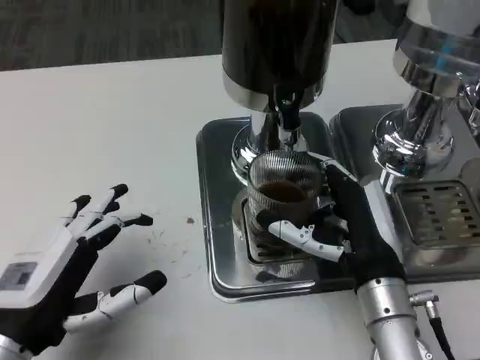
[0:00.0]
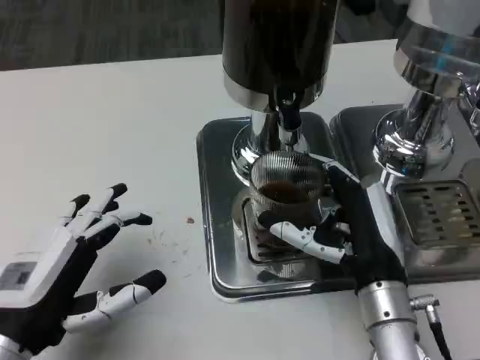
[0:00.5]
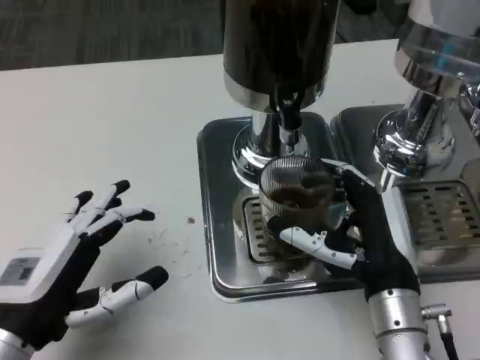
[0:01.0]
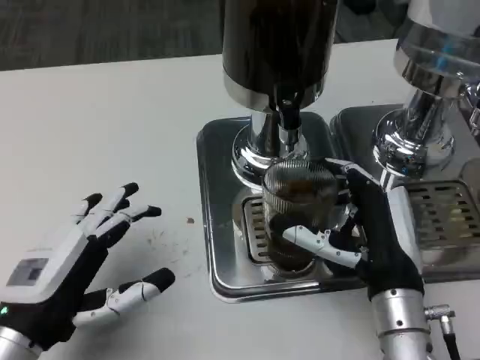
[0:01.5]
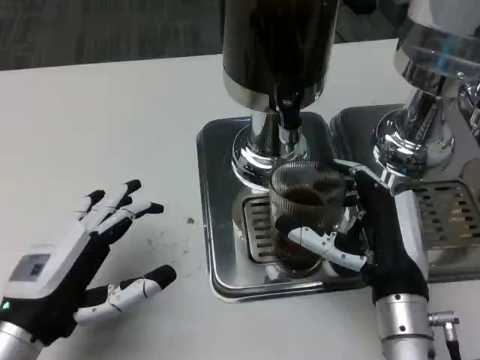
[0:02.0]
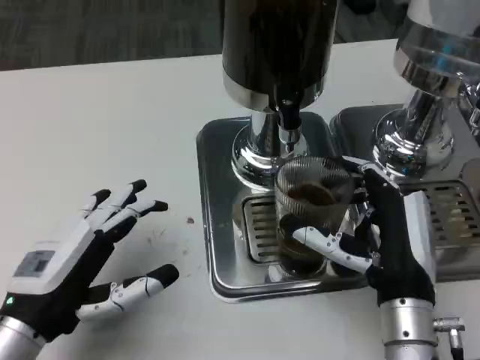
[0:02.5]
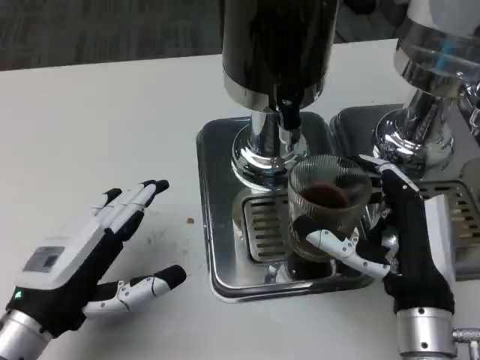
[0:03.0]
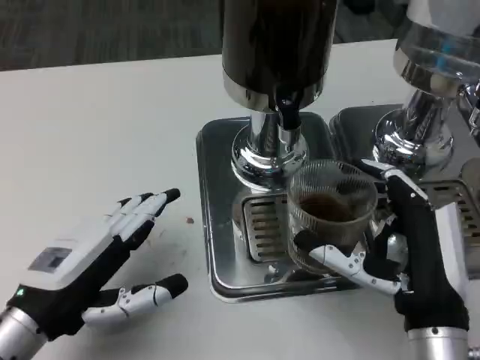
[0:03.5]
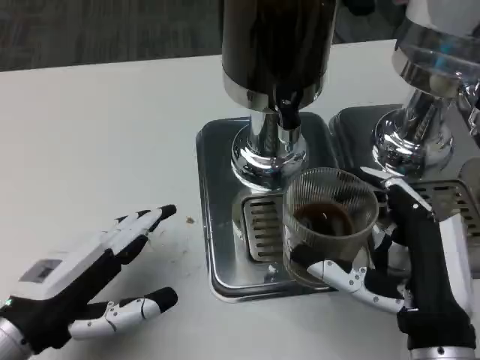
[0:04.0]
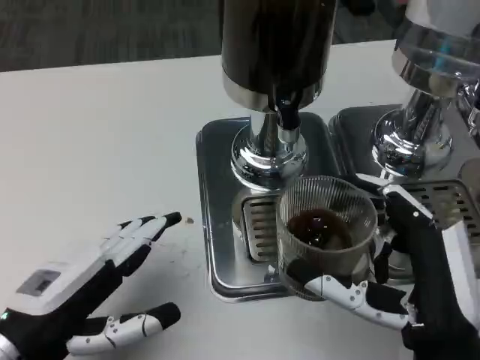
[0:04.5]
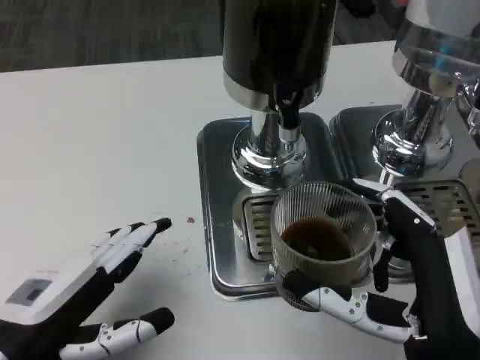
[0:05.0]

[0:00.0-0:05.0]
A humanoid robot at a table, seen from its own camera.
Task of the whole recording: Grasp the cup under the faucet to collect the drink, then remove the cup.
0:00.0 to 0:02.5: The hands move only a little.
0:02.5 to 0:05.0: The right hand moves backward, some 10 cm.

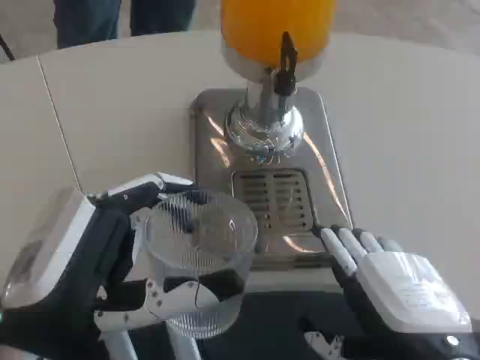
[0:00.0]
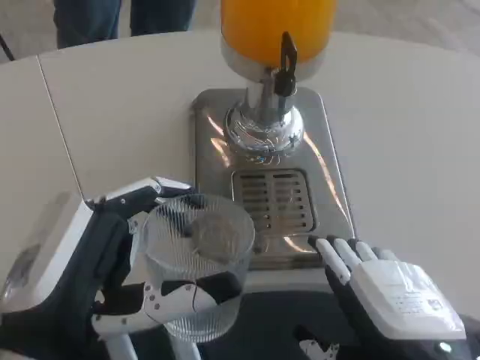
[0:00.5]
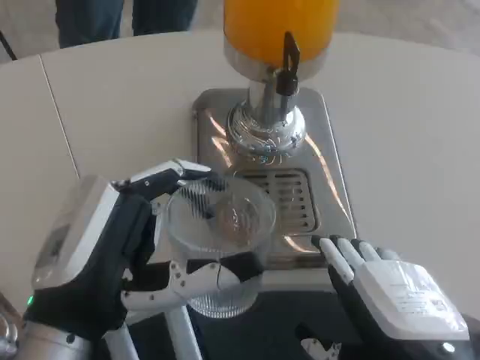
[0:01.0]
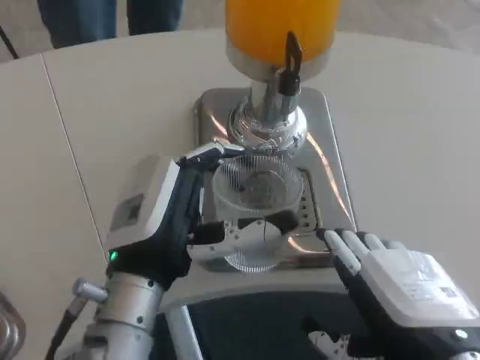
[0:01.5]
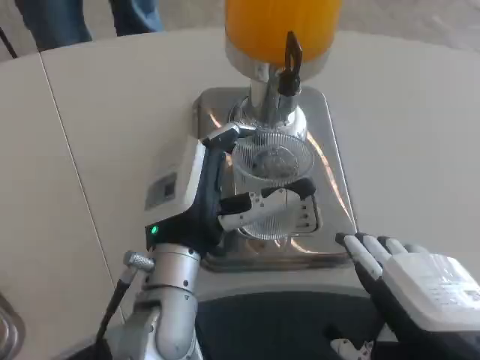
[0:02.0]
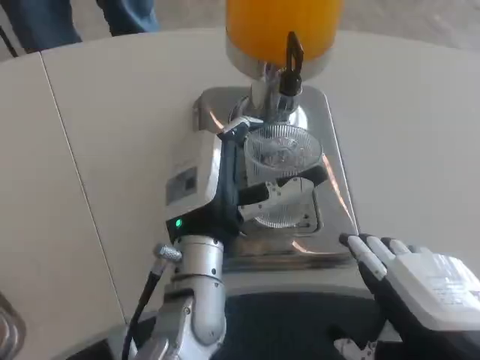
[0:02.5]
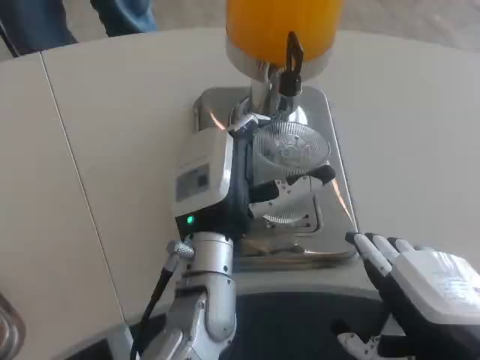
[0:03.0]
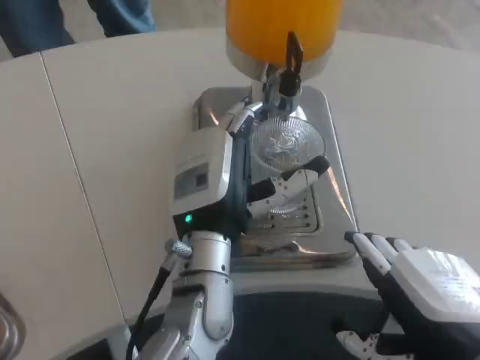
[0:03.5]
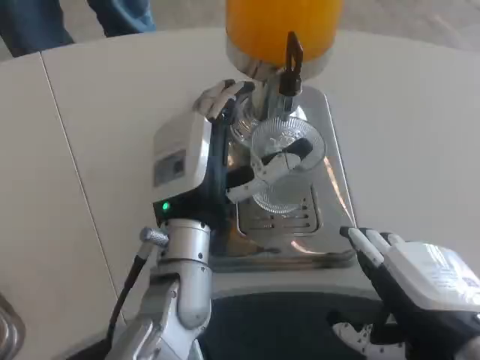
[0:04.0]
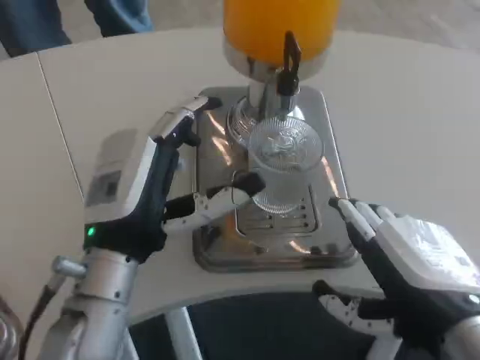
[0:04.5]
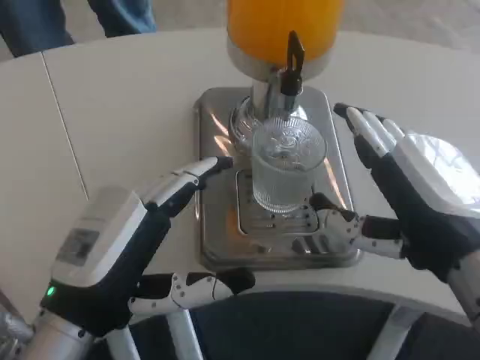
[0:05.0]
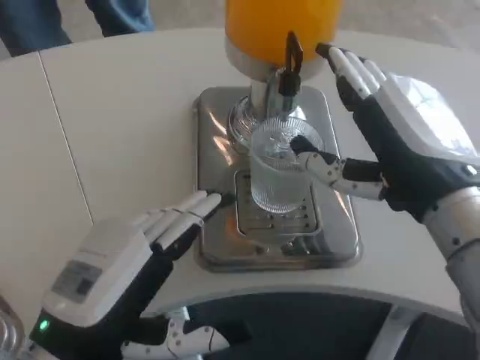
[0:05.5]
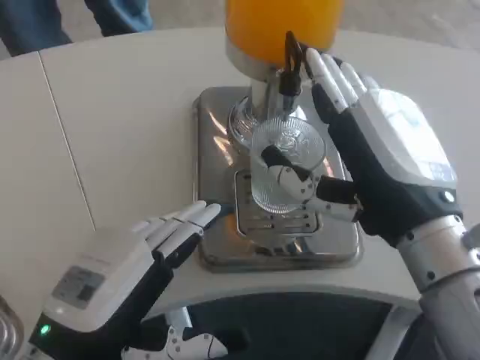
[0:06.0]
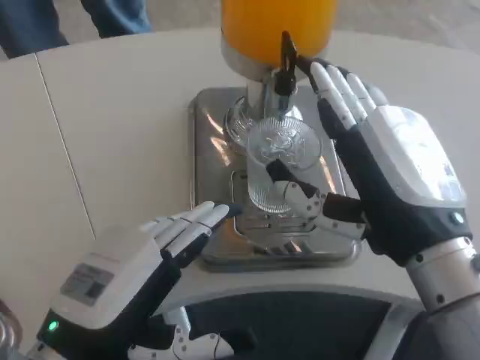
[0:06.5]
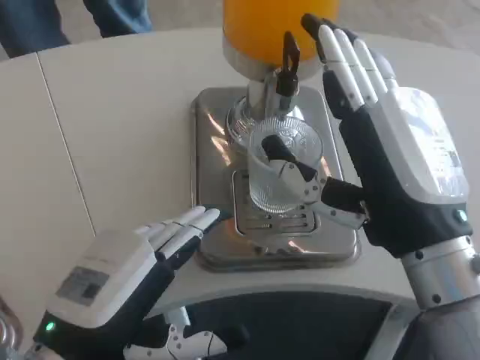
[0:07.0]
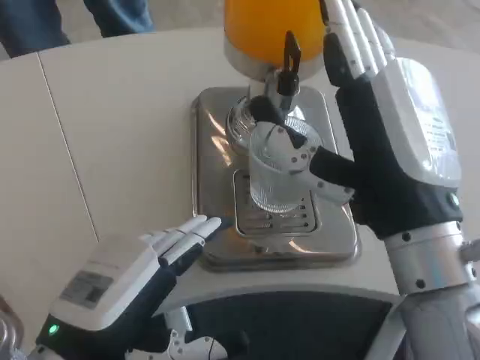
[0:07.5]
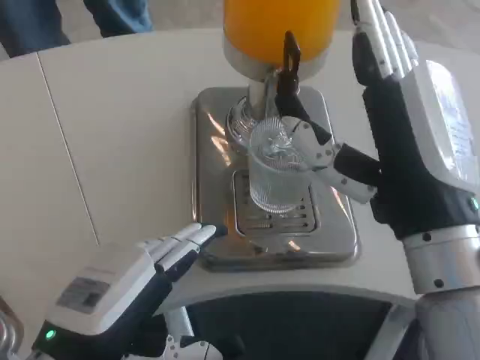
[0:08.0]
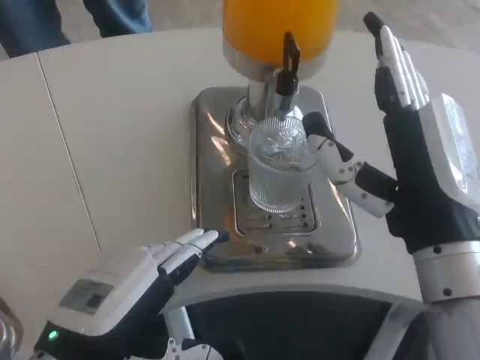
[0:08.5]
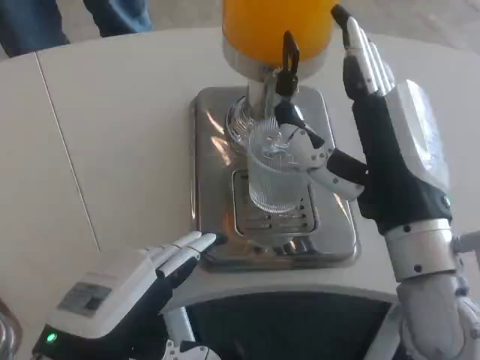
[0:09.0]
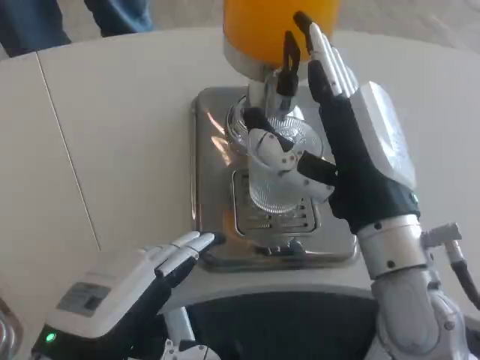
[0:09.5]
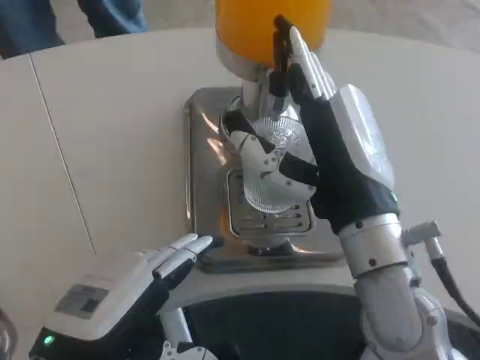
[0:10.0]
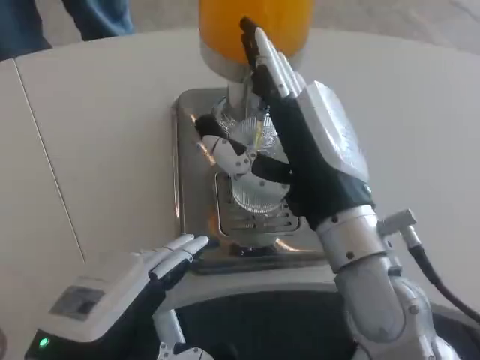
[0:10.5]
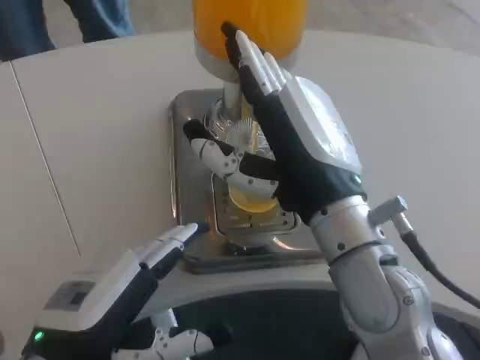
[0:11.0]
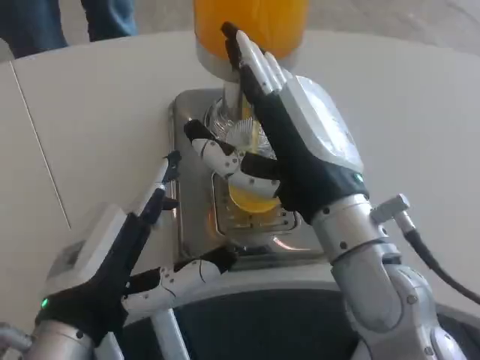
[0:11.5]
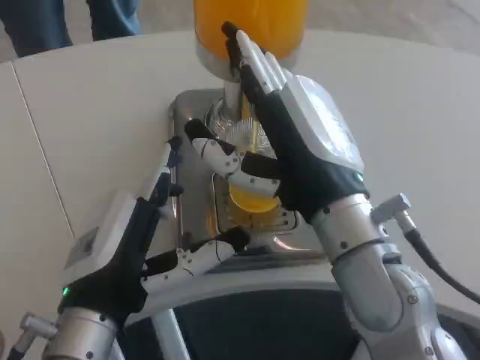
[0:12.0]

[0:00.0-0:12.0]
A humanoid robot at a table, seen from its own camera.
Task of the whole recording: Grasp the cup under the faucet to collect the drink, then remove the cup.
0:00.0 to 0:02.0: The left hand travels forward and to the right by about 15 cm.
0:04.0 to 0:06.0: The left hand is displaced backward and to the left by approximately 20 cm. Meanwhile the right hand is displaced forward by some 5 cm.
0:08.0 to 0:10.0: The right hand shifts by some 5 cm.
0:10.0 to 0:12.0: The left hand is displaced to the right by some 5 cm.

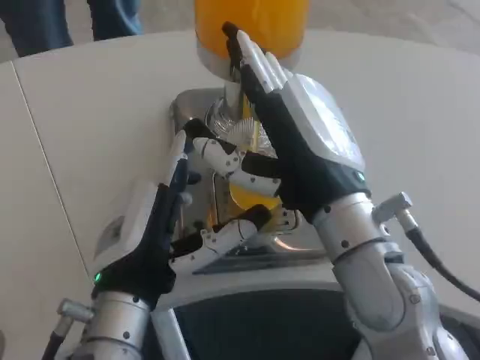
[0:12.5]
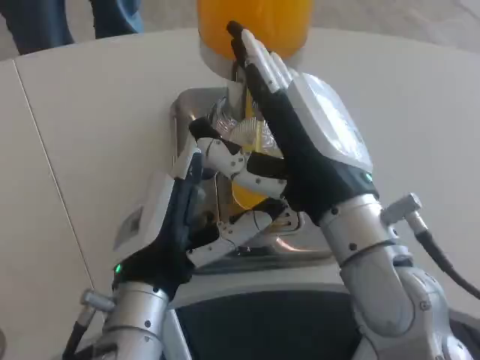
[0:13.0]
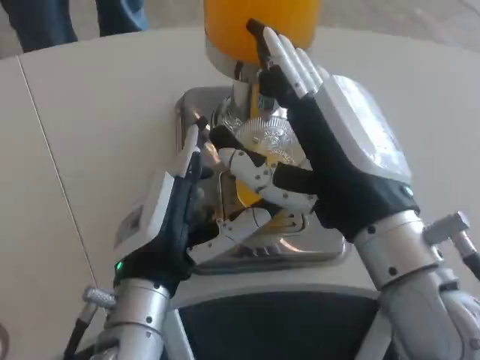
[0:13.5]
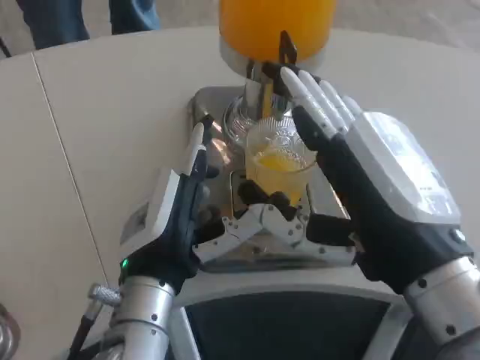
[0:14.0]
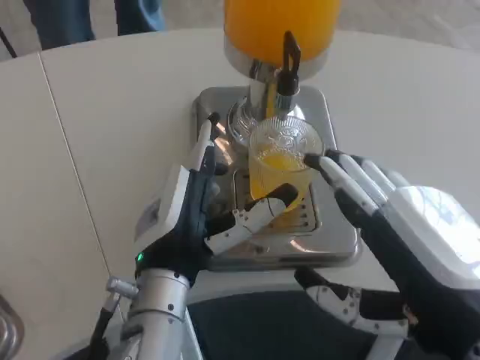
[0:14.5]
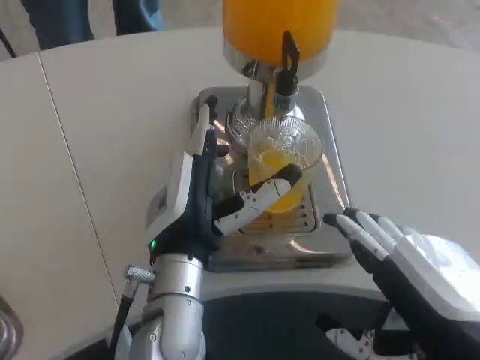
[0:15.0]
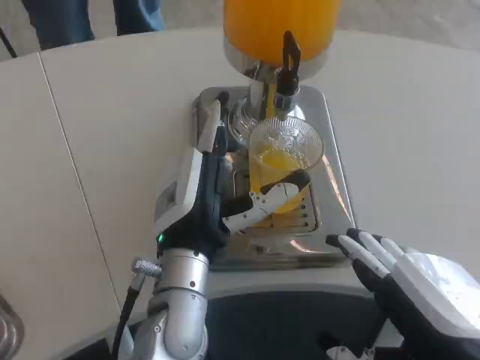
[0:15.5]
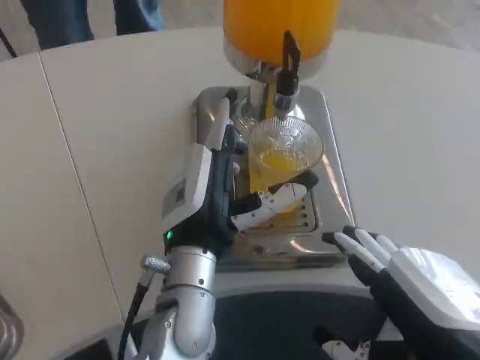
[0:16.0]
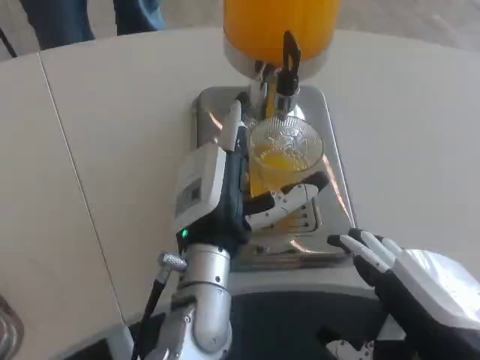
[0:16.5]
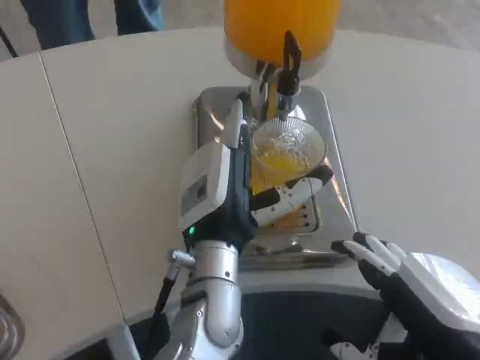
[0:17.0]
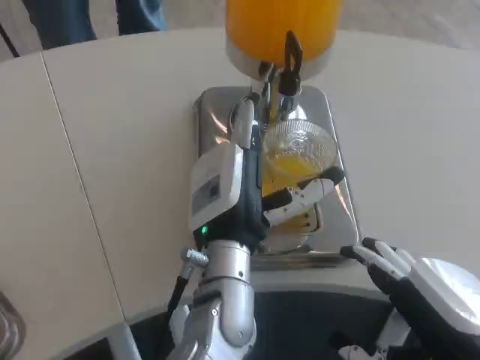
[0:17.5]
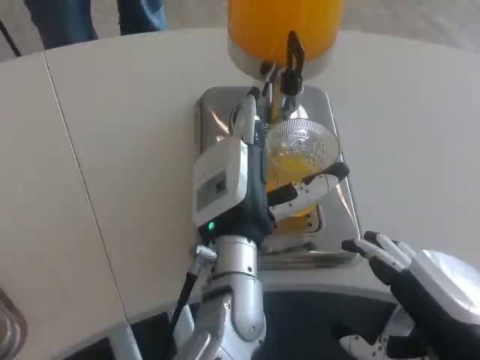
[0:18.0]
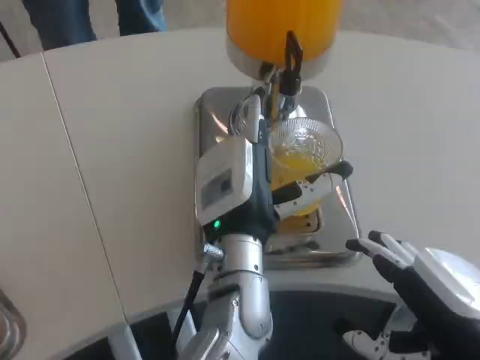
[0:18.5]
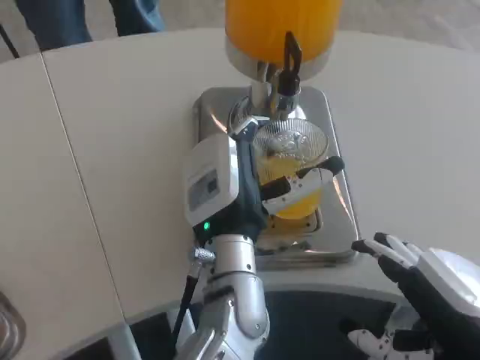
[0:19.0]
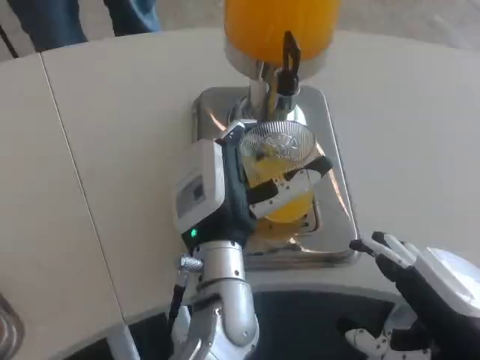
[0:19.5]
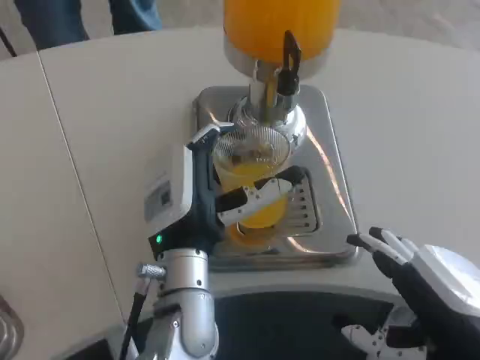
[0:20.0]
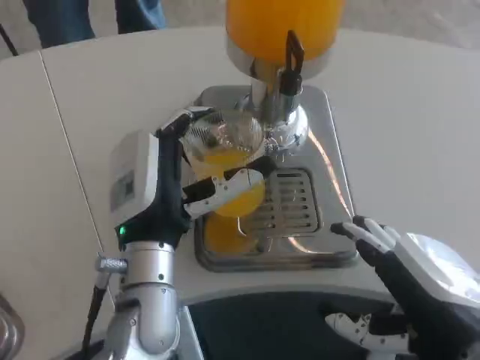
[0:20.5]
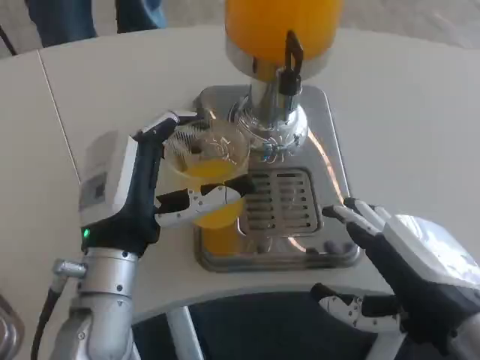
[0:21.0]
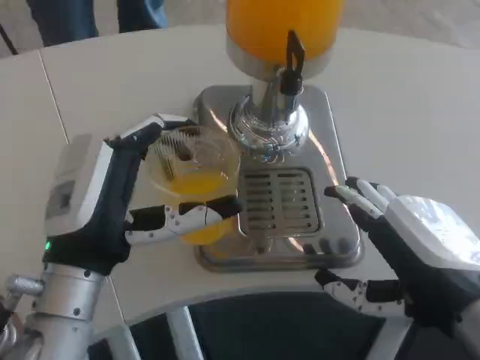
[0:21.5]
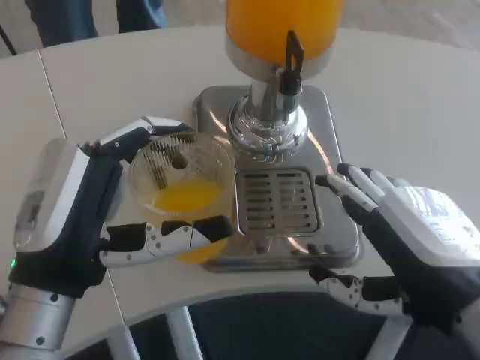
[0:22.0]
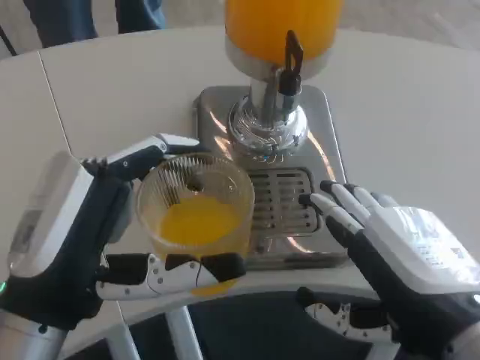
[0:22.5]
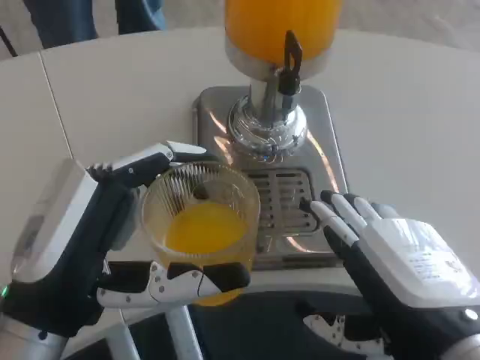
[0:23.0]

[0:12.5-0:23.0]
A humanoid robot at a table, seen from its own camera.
Task of the whole recording: Grasp the cup under the faucet to collect the drink, then remove the cup.
0:12.5 to 0:14.5: The right hand moves backward and to the right, roughly 15 cm.
0:14.5 to 0:16.5: The left hand moves approximately 5 cm.
0:16.5 to 0:19.0: The hands move only a little.
0:19.0 to 0:21.0: The left hand heads to the left, covering about 15 cm.
0:21.0 to 0:23.0: The left hand is displaced backward by some 10 cm.
